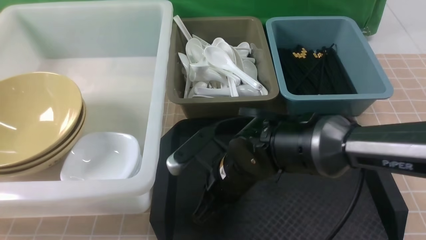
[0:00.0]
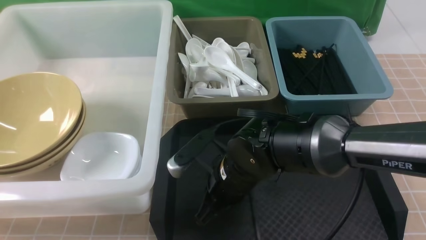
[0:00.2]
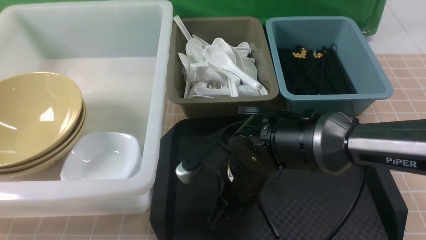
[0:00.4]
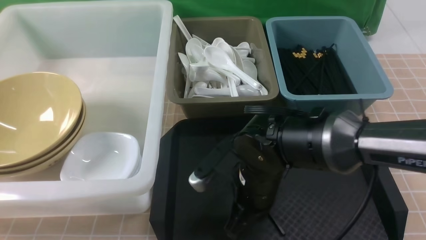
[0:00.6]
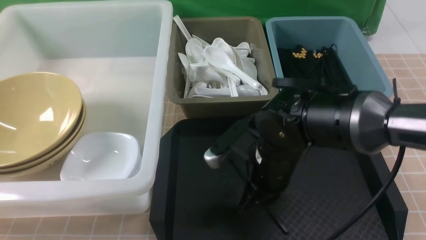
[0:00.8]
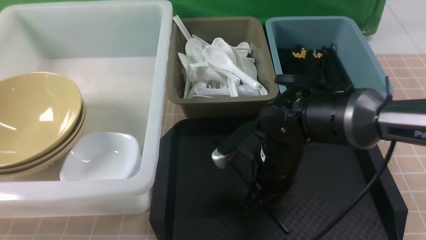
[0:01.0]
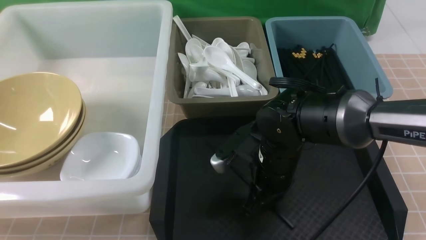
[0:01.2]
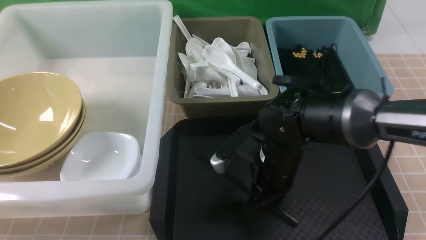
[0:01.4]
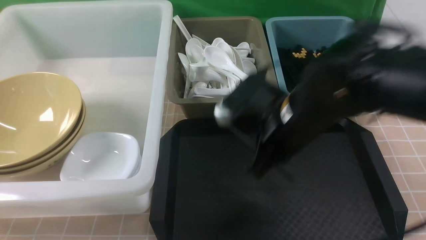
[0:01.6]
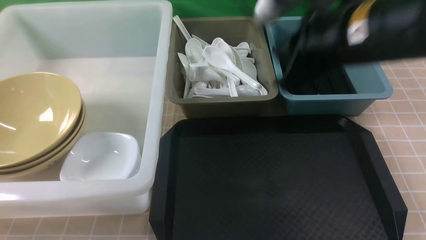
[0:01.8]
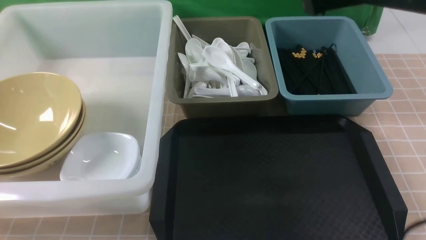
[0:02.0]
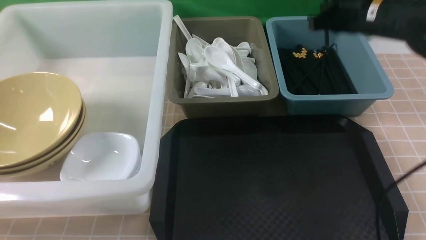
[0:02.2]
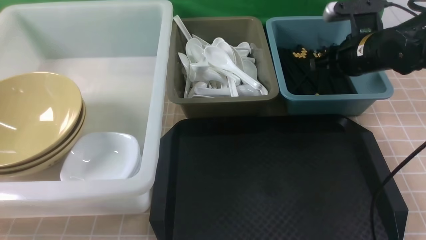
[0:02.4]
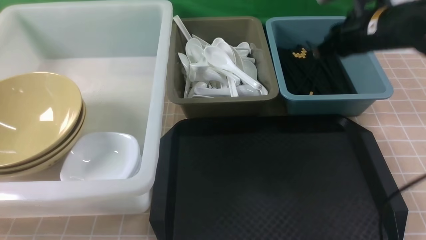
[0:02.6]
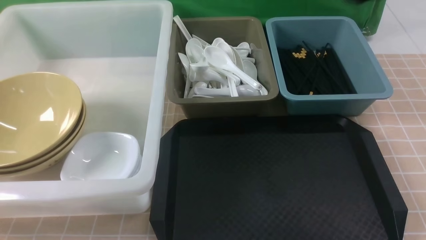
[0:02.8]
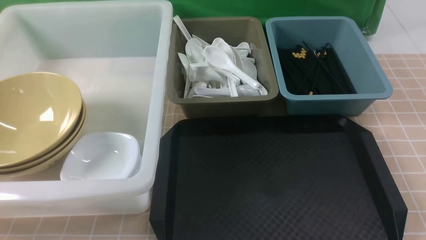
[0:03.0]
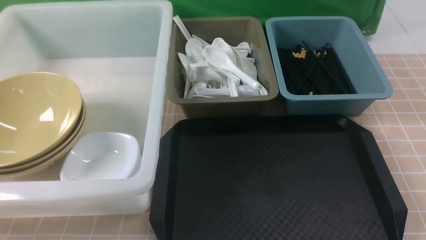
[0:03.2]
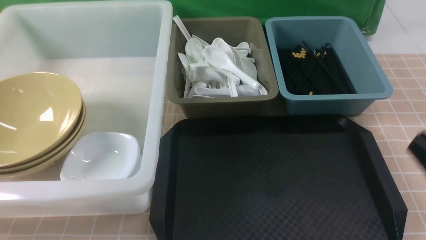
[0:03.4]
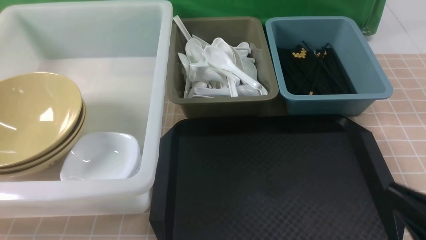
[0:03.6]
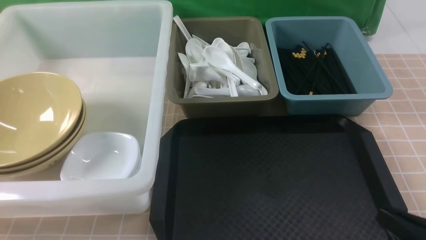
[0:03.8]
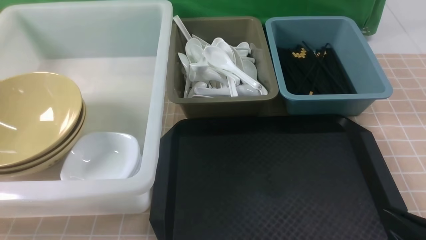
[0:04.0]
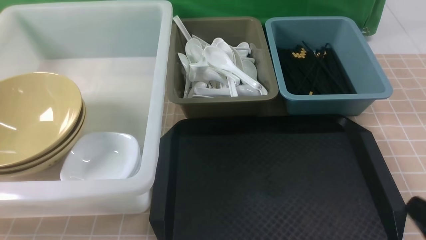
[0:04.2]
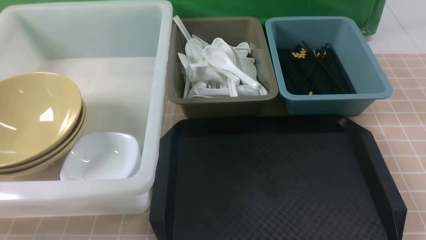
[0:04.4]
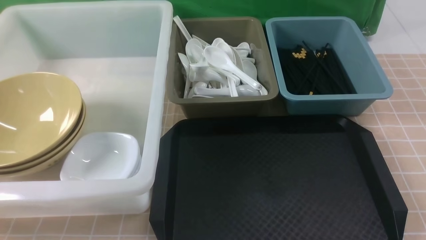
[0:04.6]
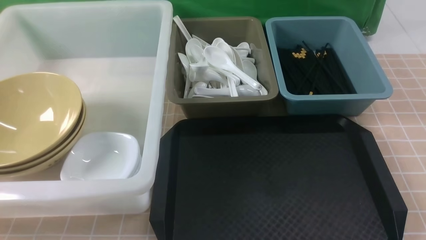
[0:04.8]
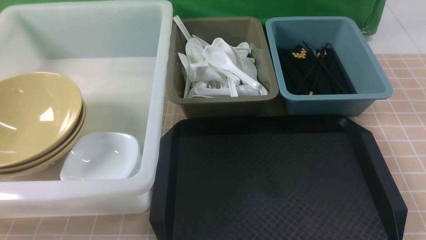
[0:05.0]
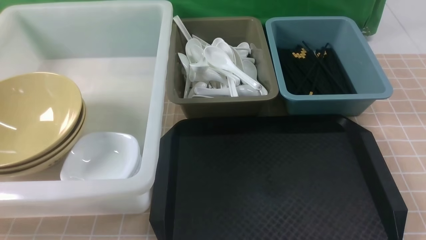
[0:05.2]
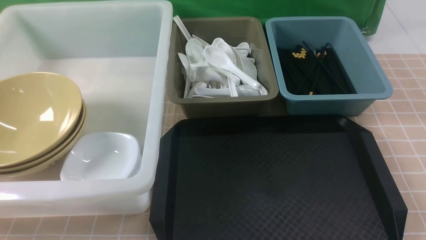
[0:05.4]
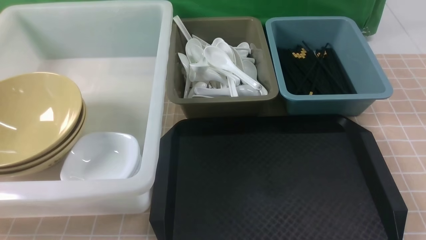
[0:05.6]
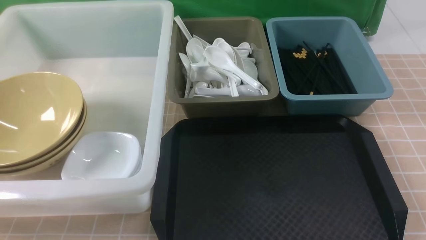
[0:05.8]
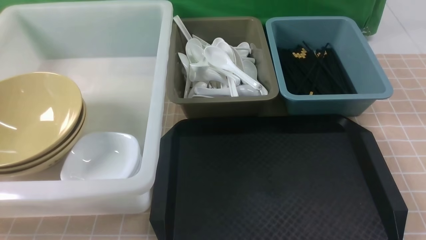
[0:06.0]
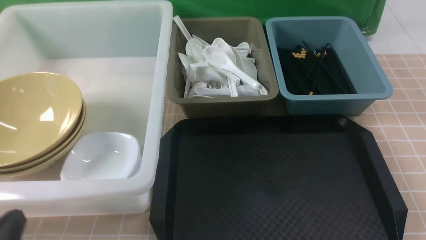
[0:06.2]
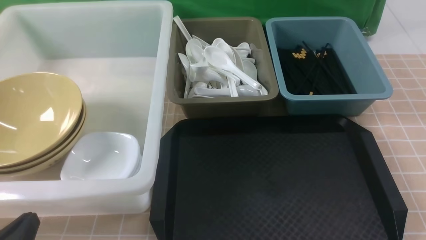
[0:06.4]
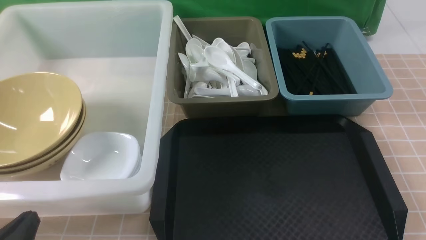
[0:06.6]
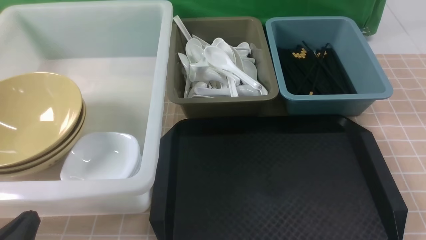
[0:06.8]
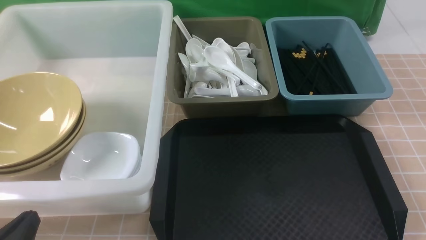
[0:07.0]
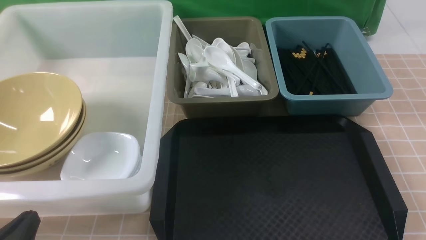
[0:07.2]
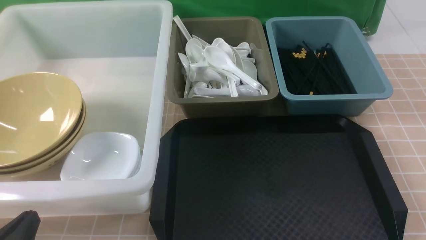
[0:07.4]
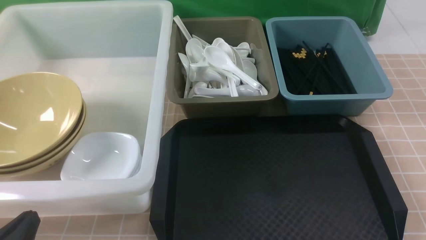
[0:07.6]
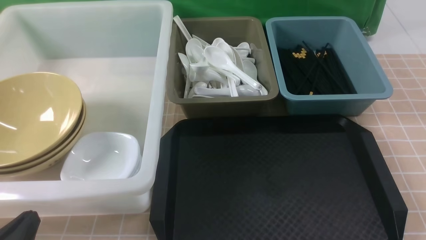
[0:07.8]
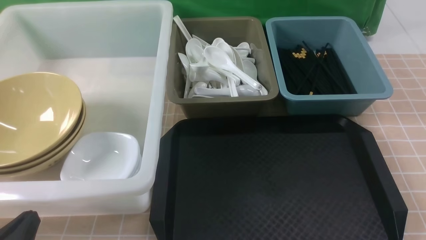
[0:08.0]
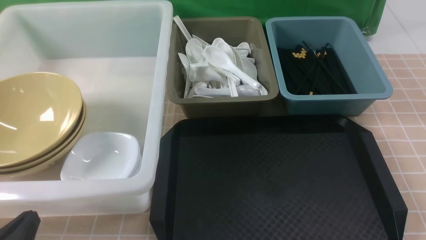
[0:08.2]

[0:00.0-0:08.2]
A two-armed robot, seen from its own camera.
Task of the whole recording: on brown table put chopsticks spoon bowls plates into blue grey white boxes.
Step, 0:00.0 to 0:01.6: use the right arm to grab a chopstick.
Step, 0:01.8 to 0:02.8: use the right arm to put a chopstick into the small storage box on the right.
0:00.0 to 0:01.6: The right gripper goes approximately 15 cm upward and to the right.
0:01.6 to 0:03.2: The right gripper shifts about 25 cm backward and to the right.
0:05.0 to 0:06.6: The left gripper shifts some 10 cm downward.
0:06.6 to 0:08.2: Neither gripper changes place.
